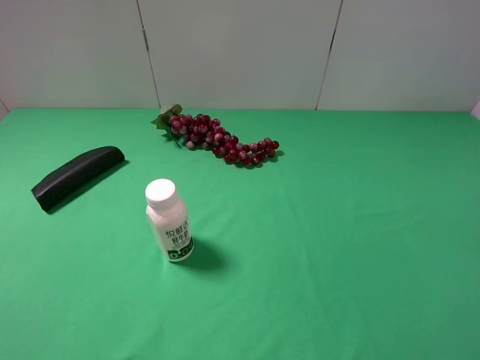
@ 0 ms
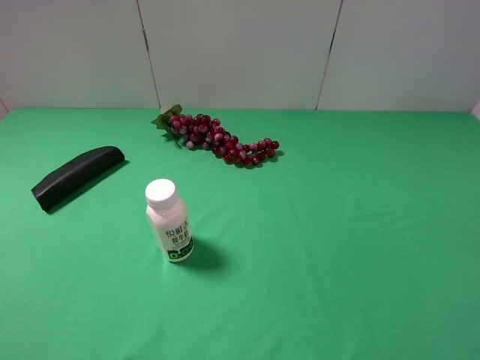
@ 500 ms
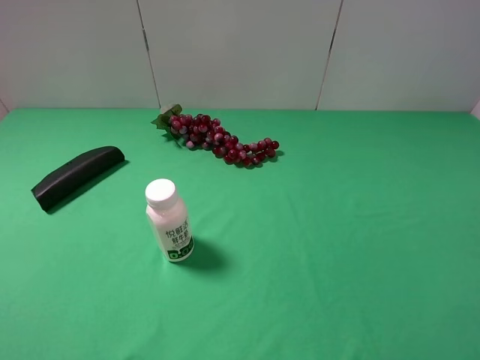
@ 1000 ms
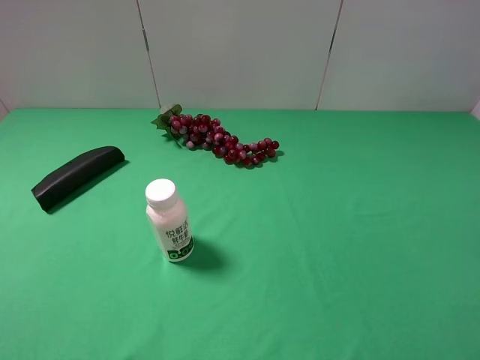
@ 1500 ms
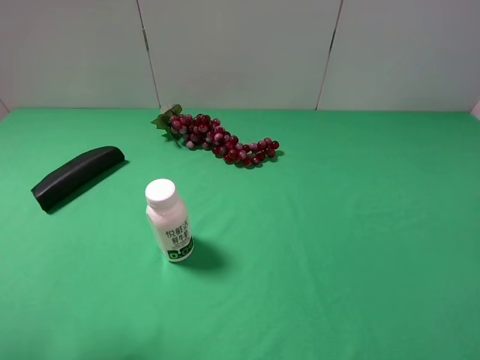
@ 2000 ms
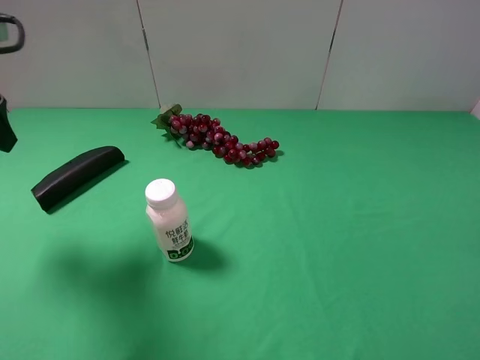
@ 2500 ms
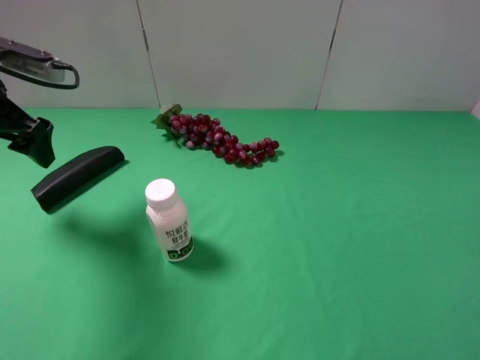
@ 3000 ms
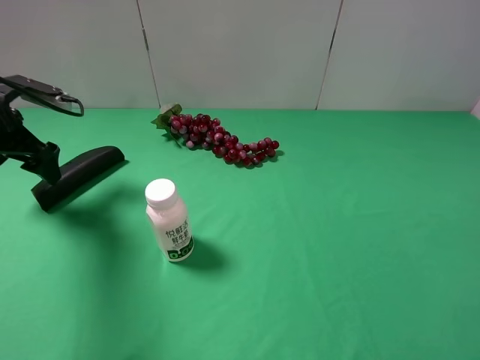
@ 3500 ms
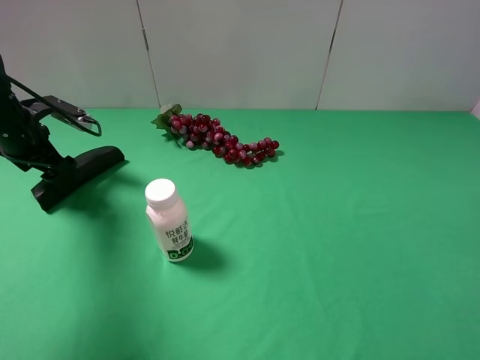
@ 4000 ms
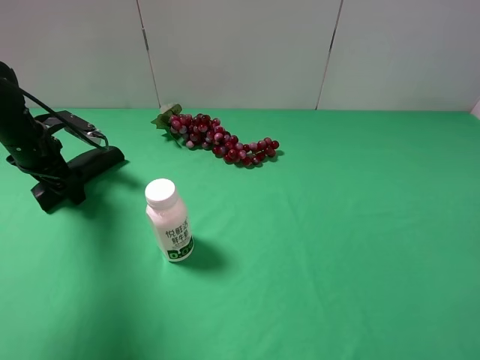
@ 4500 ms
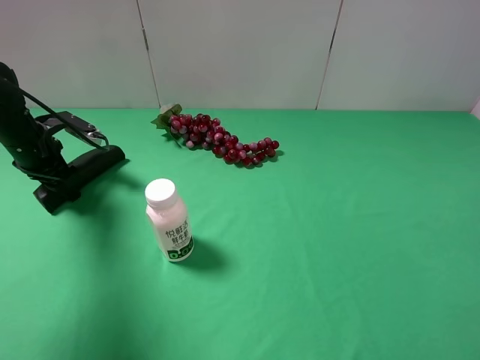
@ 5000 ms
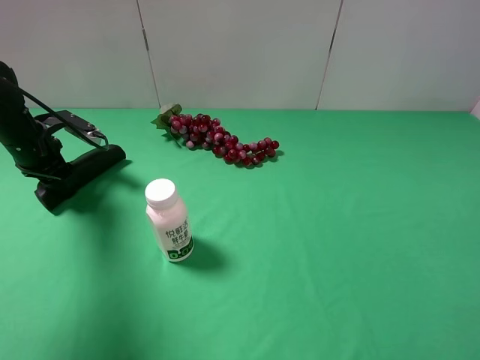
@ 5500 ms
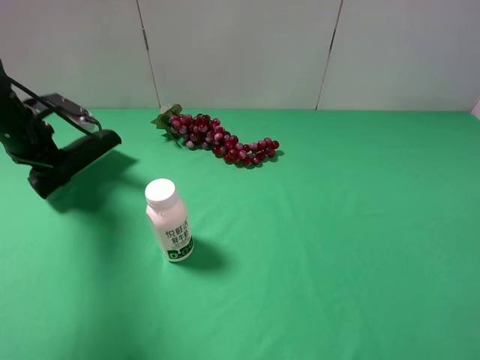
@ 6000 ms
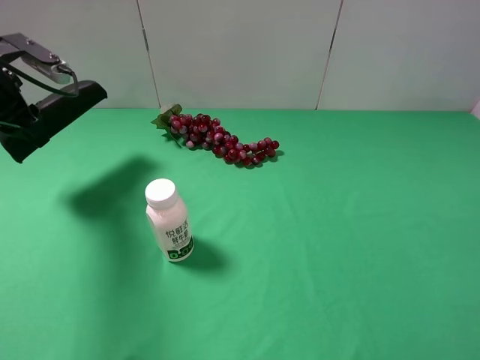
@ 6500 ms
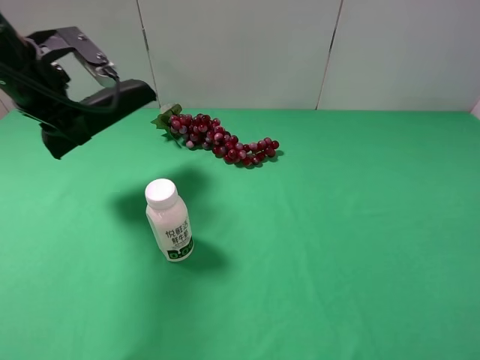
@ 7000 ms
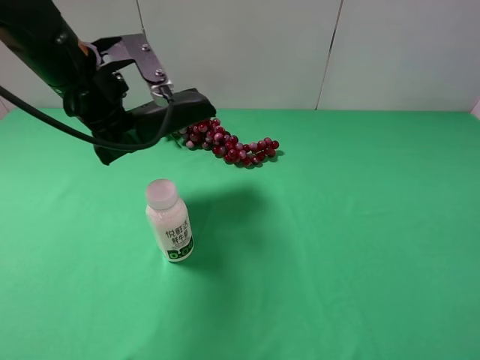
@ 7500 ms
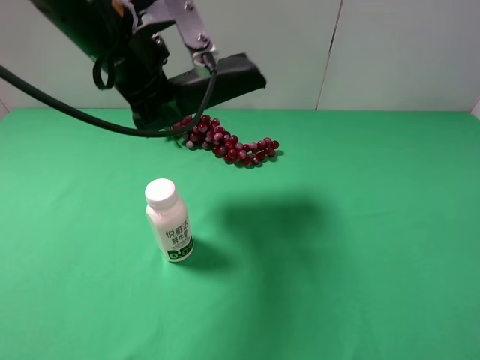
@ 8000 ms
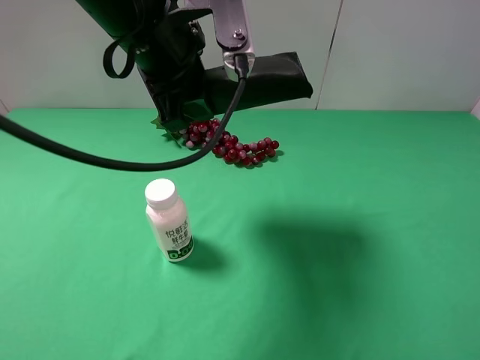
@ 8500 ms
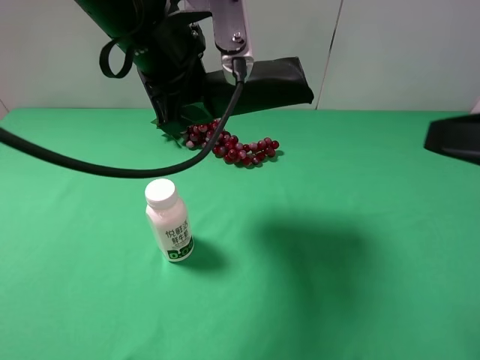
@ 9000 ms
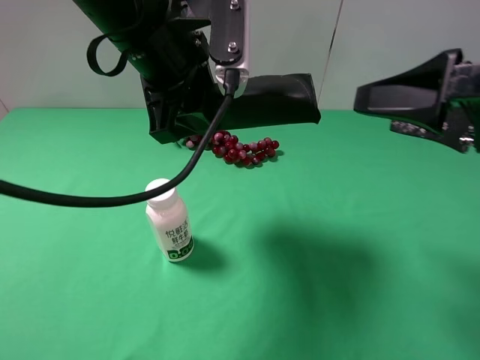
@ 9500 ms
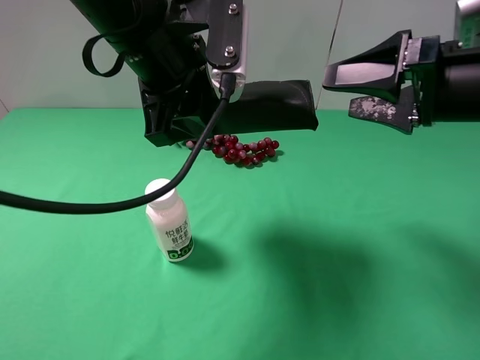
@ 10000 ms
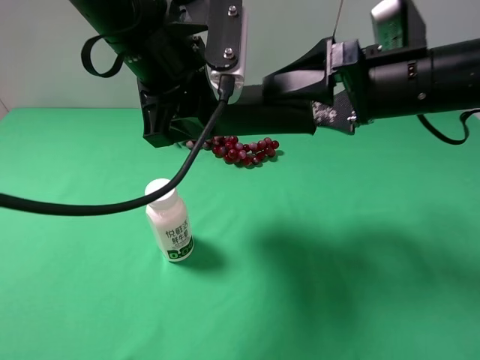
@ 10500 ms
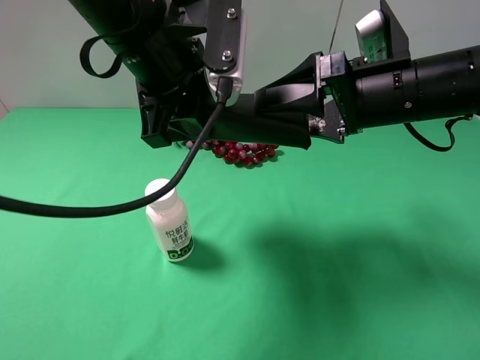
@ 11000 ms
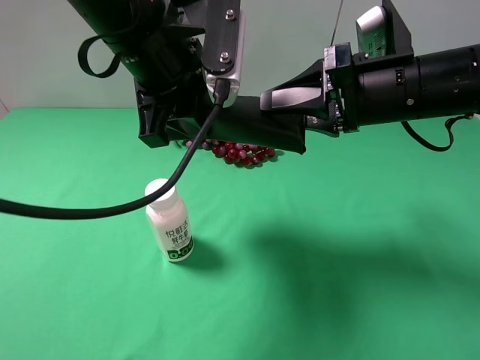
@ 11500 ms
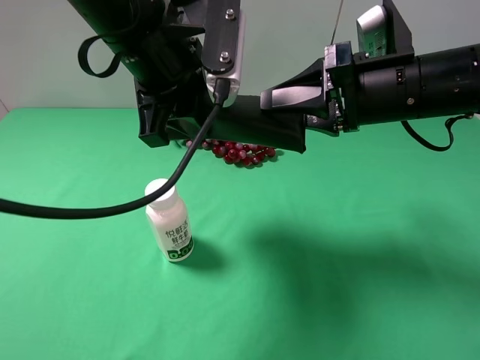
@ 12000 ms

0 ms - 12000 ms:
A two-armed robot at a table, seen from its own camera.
Task of the whole recording: use the left gripper to pick up the item and transfer it from the left gripper to the right gripper.
Step, 0 ms - 5500 ms: Use the left gripper to grab the eyeglass case on the left side of the table.
2000 ms - 4000 ms: The left gripper moves forward and downward, some 35 cm.
4000 ms - 6000 ms: The left gripper closes.
6000 ms - 8000 ms: The left gripper travels to the right and upward by roughly 25 cm.
8000 ms - 10000 ms: The left gripper ends up approximately 5 cm from where it was; the right gripper is displaced forward by roughly 25 cm.
10000 ms - 12000 ms: The right gripper shifts roughly 5 cm to the left, and closes its fingers.

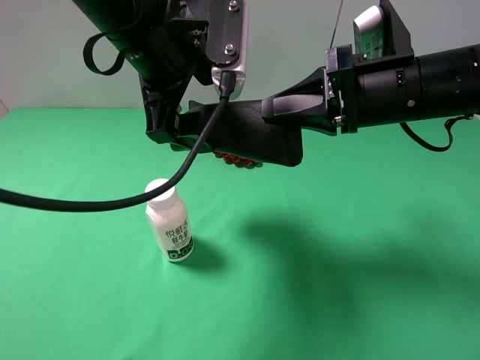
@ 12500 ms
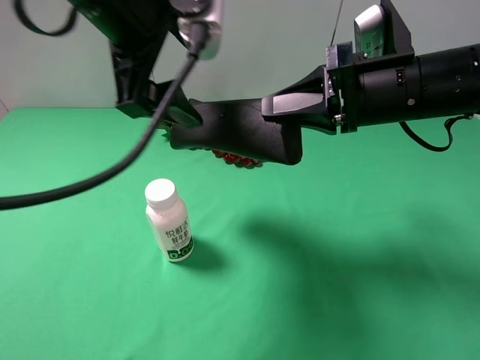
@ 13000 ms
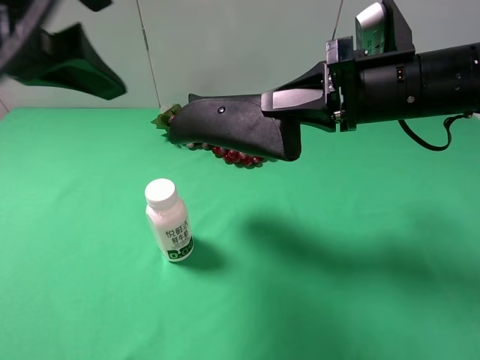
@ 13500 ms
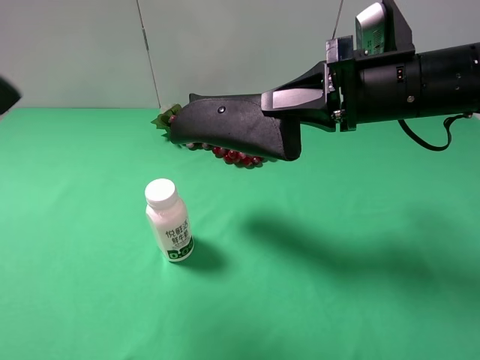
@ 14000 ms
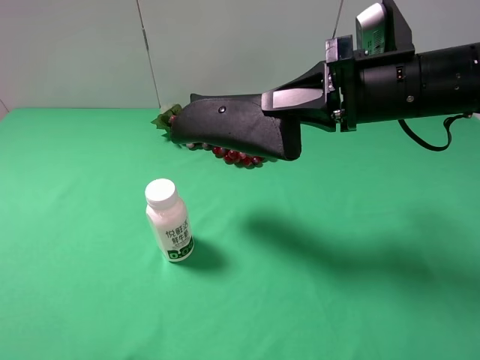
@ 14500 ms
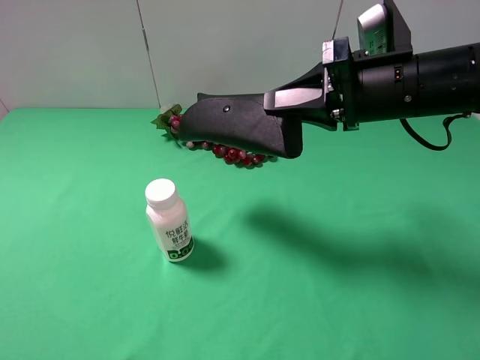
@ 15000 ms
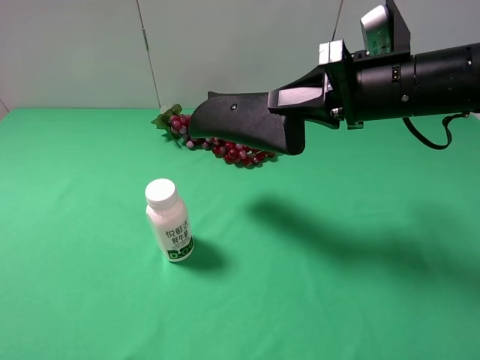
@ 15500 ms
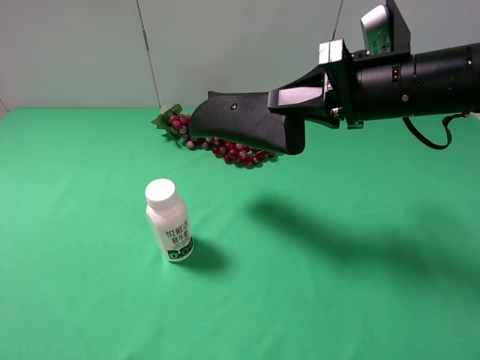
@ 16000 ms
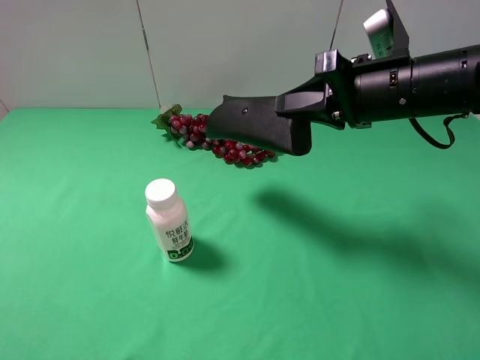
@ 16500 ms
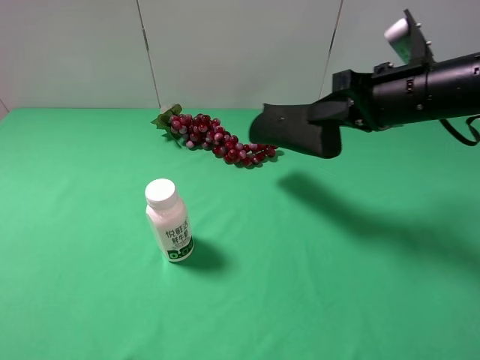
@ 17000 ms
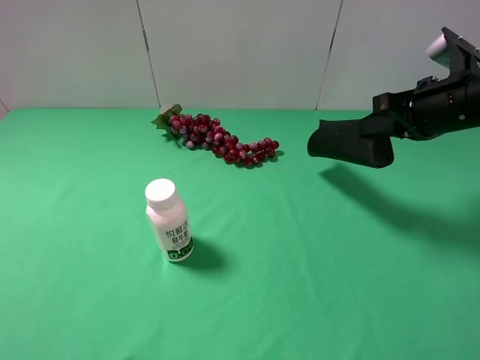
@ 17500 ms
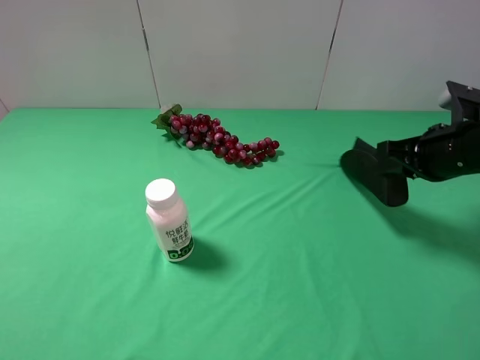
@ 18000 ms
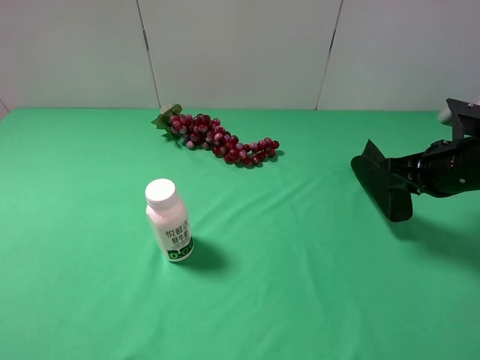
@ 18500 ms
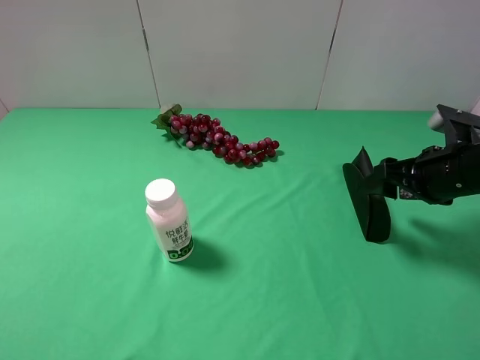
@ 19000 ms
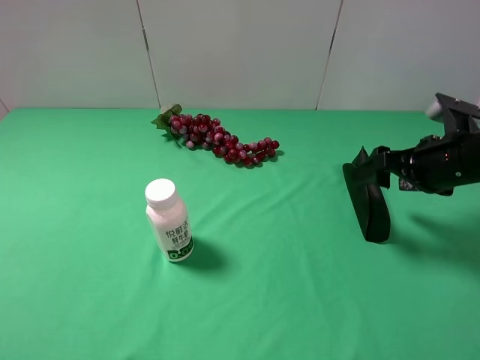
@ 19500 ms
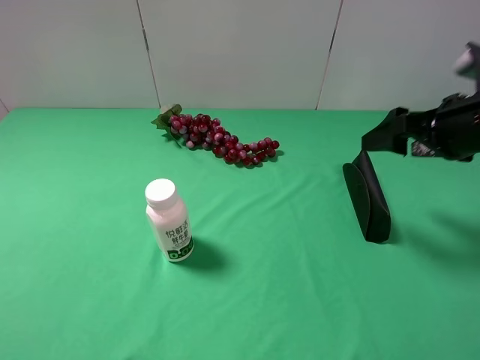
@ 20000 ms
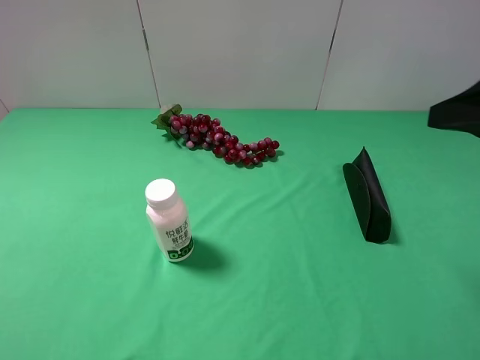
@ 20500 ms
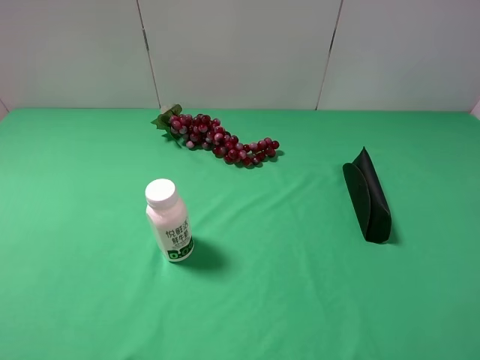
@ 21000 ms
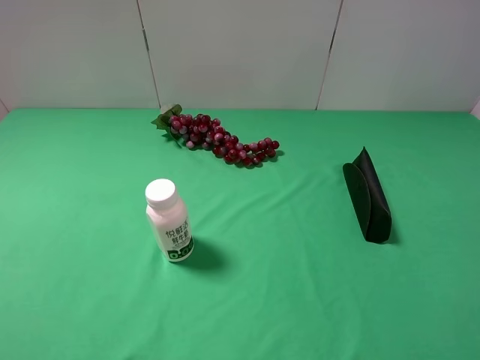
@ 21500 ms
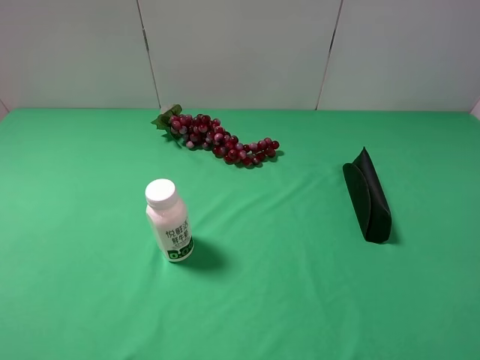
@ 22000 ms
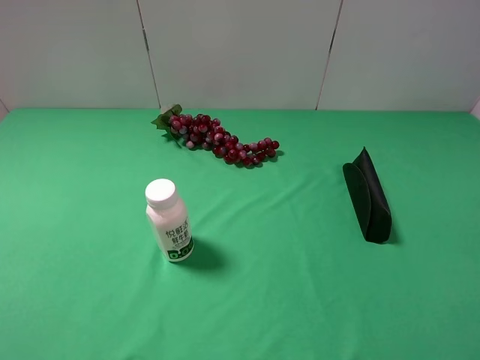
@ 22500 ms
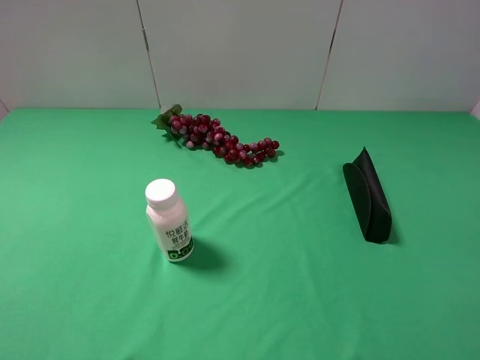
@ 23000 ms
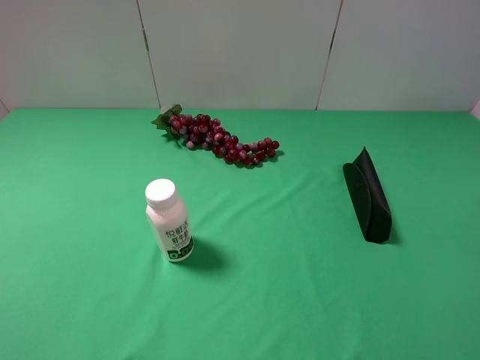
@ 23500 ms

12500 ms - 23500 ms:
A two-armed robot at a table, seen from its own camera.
Task of the whole recording: use the left gripper to pick up the item and transfer it from the left gripper to the right gripper.
Step, 13000 ms - 19500 ms: The right gripper places eyeglass case on the right side of the table.
12500 ms - 14500 ms: The left gripper travels backward and to the left by some 30 cm.
14500 ms - 16000 ms: The left gripper shifts some 10 cm downward.
16000 ms - 18000 ms: The right gripper shifts some 15 cm to the right and downward.
18000 ms - 20000 ms: The right gripper is displaced upward by some 5 cm, and opens its fingers.
20000 ms - 21500 ms: The right gripper is displaced backward by roughly 20 cm.

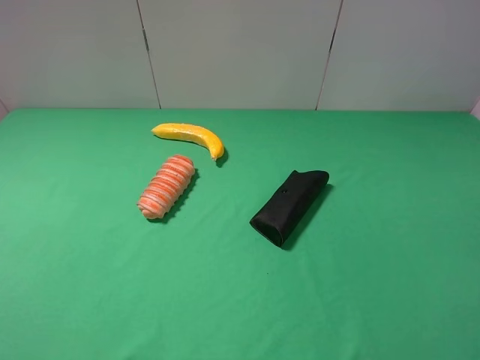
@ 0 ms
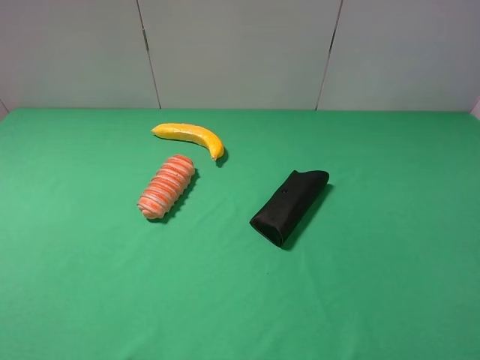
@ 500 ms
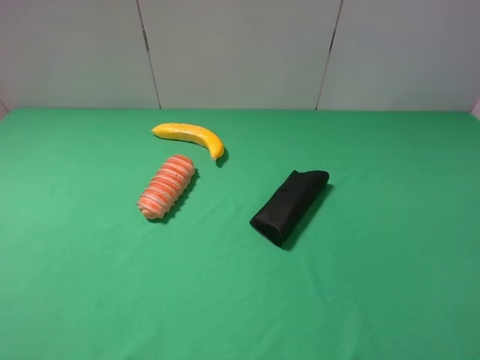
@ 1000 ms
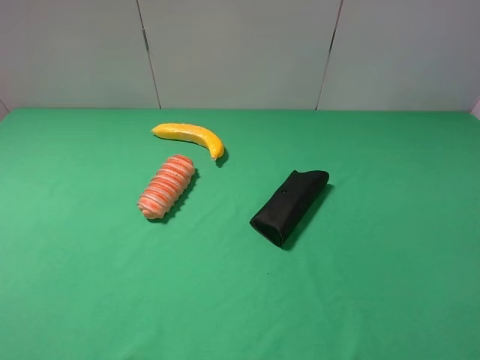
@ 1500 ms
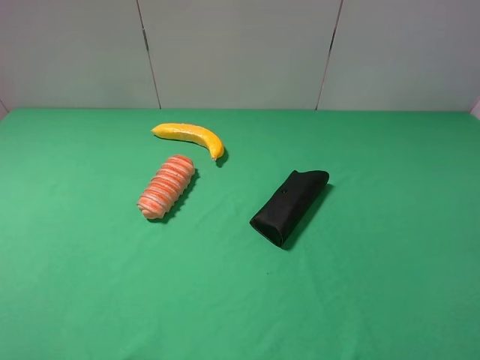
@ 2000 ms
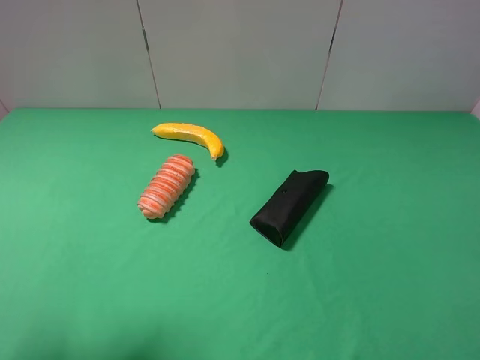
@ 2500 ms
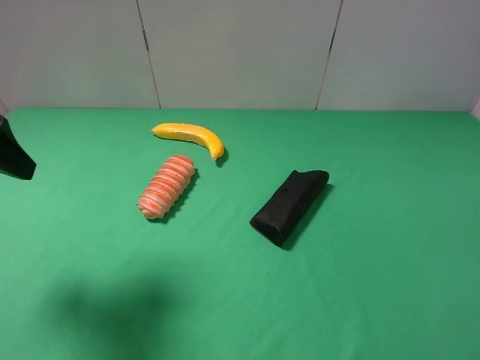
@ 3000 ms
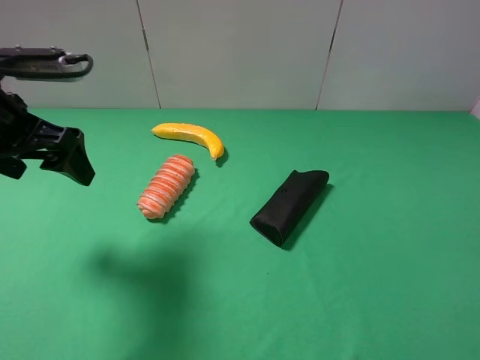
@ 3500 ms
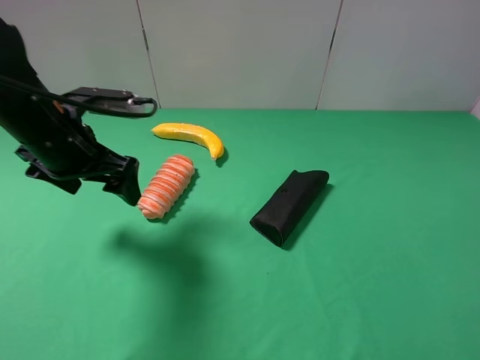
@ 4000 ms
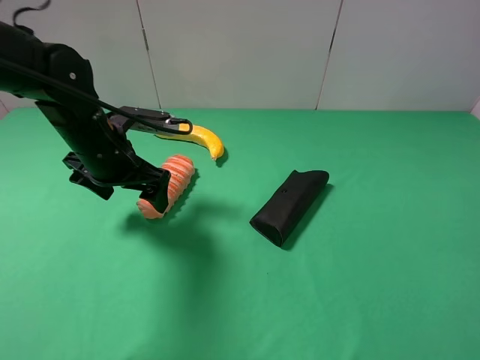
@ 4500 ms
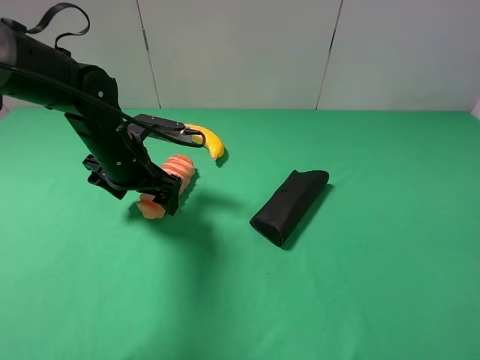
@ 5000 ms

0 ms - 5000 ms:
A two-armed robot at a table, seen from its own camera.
Task of the whole recording: use the left gripper to pick up the item and transfer it from the left gripper to the right gripper.
2500 ms - 5000 ms: The left gripper shifts about 30 cm forward, downward and to the right.
